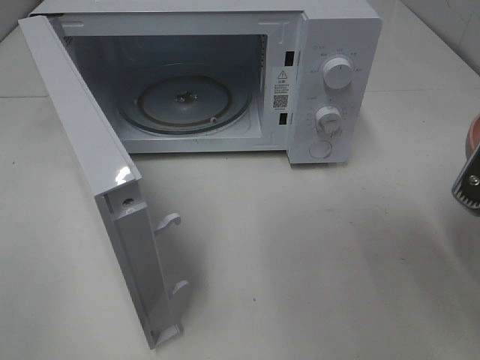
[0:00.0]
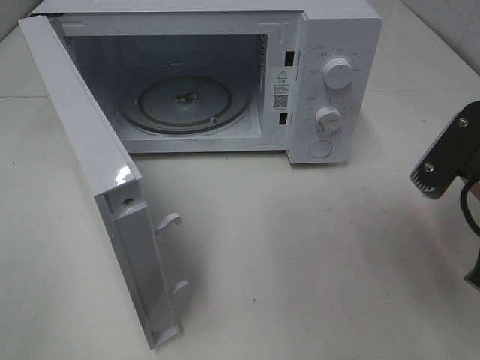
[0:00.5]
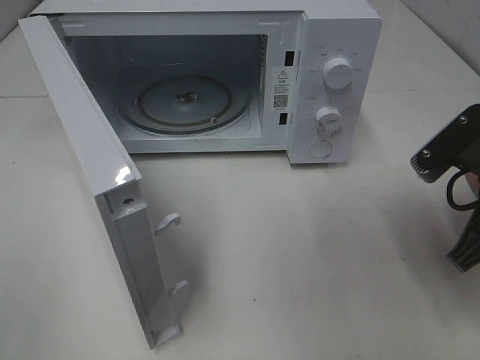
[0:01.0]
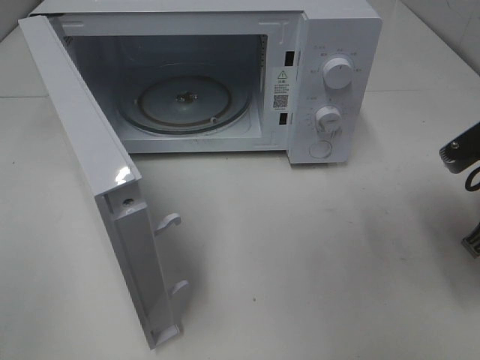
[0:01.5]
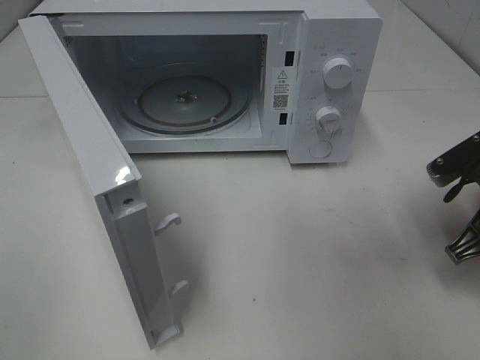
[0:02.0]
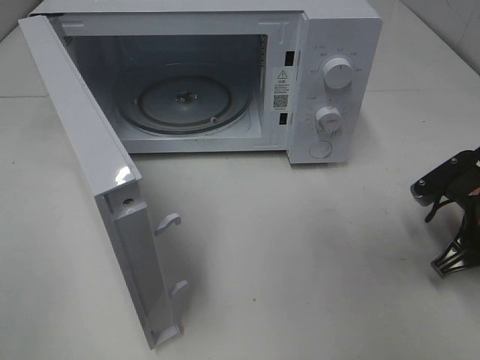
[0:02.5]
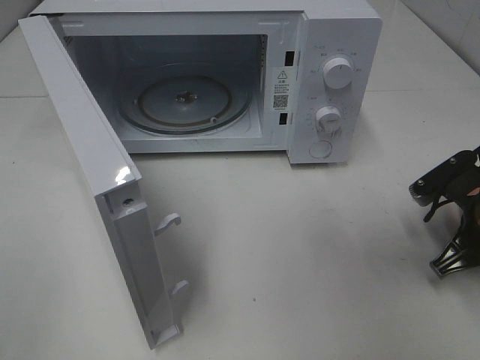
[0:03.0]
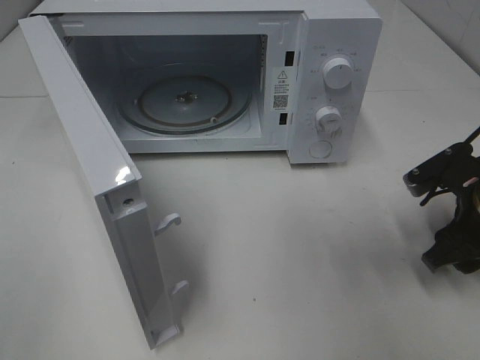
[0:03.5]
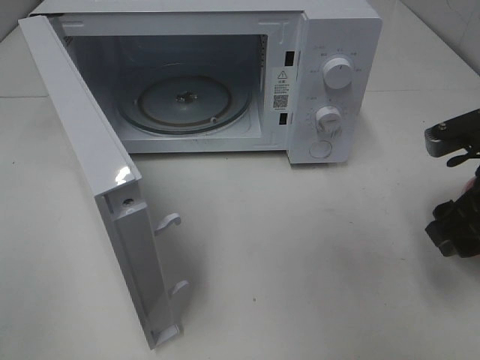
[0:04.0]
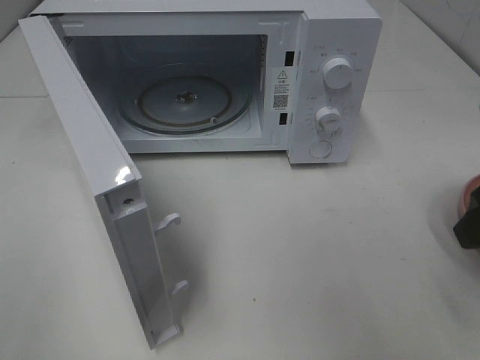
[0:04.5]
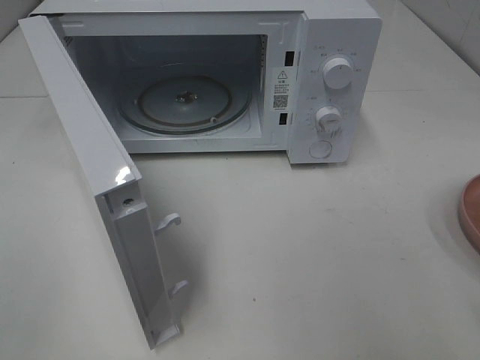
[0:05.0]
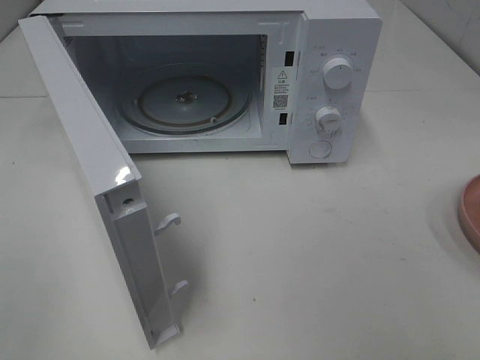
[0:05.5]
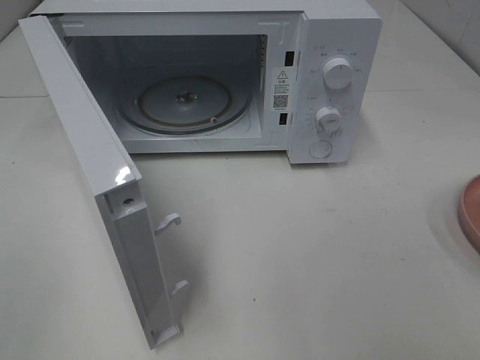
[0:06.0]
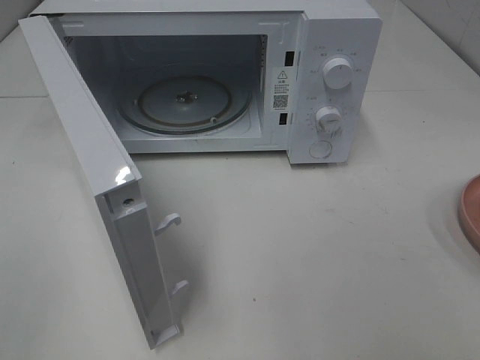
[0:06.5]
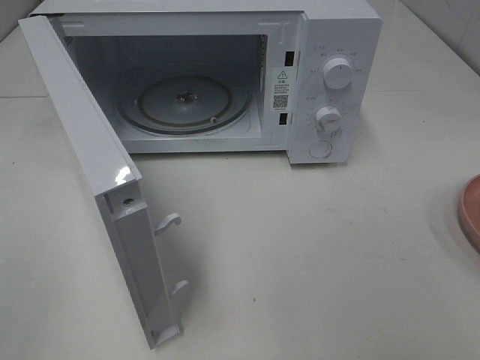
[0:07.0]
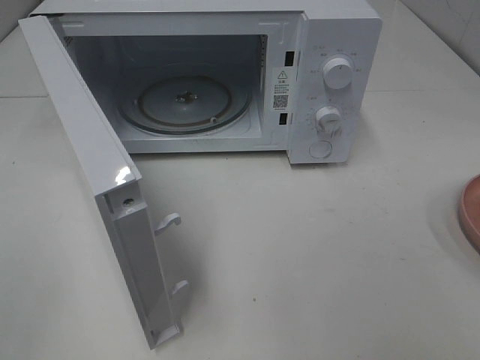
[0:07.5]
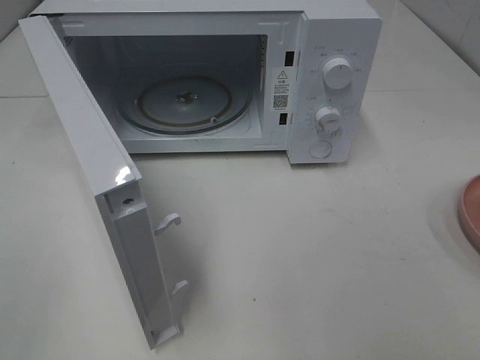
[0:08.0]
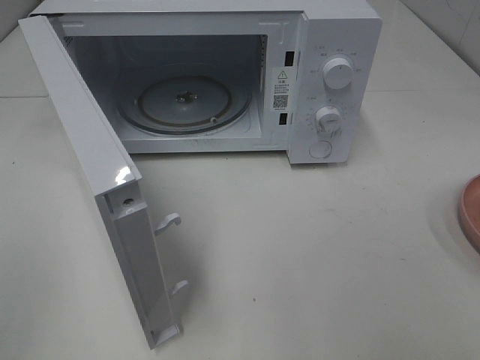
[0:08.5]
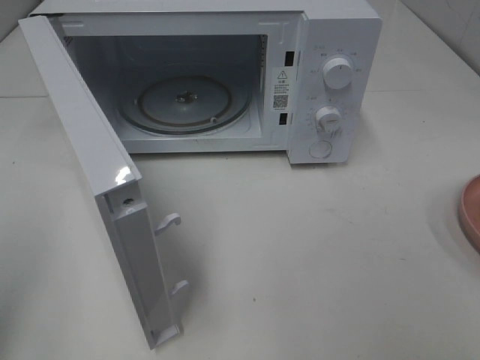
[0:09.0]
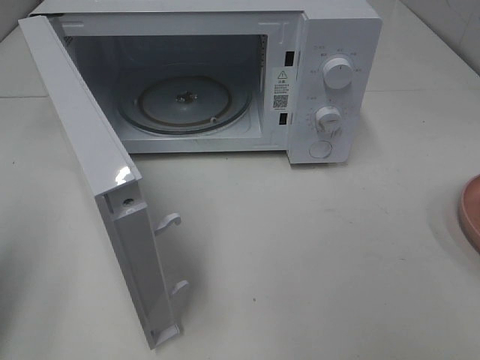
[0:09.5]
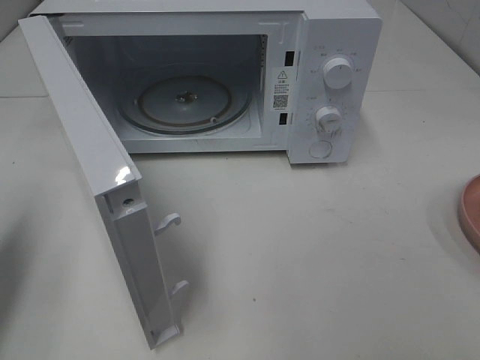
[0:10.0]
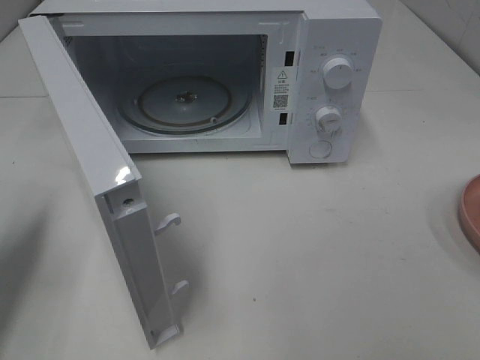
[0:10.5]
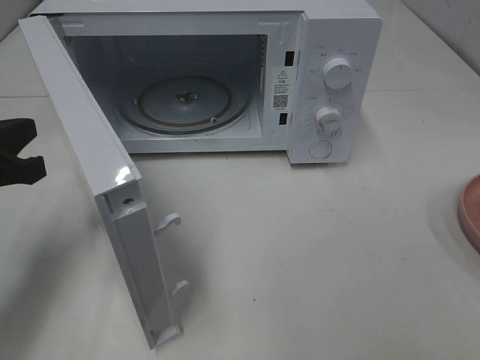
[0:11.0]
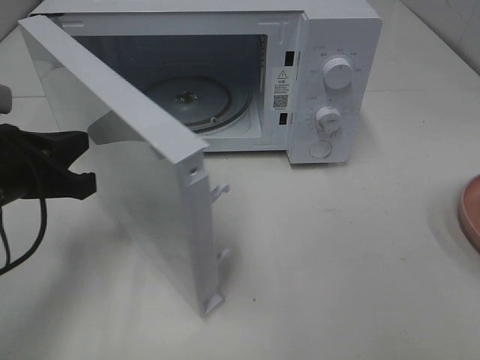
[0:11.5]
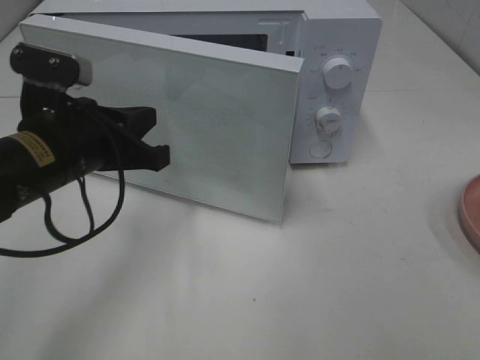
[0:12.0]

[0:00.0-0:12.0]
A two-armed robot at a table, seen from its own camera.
Task of the whole recording: Heat Sandwich.
Step, 0.0 to 4.0 s: Right hand: place the plate on the table.
0.0 to 2.0 s: The right gripper is displaced downward and forward by some 15 cm.
2.0 to 4.0 s: The right gripper goes approximately 5 cm upward, and opens up.
4.0 to 6.0 s: The right gripper shifts roughly 25 cm backward and upward.
6.0 to 8.0 s: Both grippers stay about where they are.
8.0 to 10.0 s: The left gripper shifts about 20 cm forward, and closes.
10.0 to 12.0 s: The left gripper heads to the right and forward, covering roughly 20 cm.

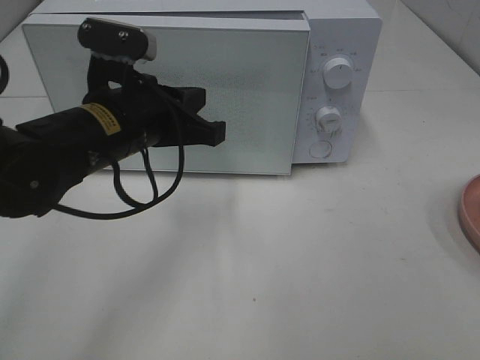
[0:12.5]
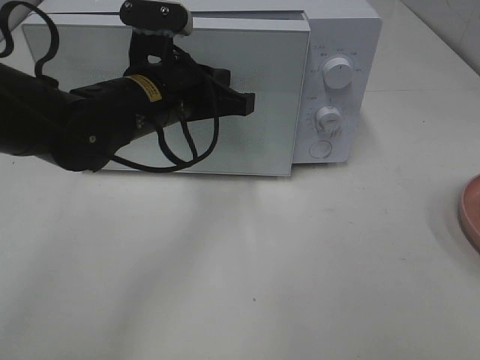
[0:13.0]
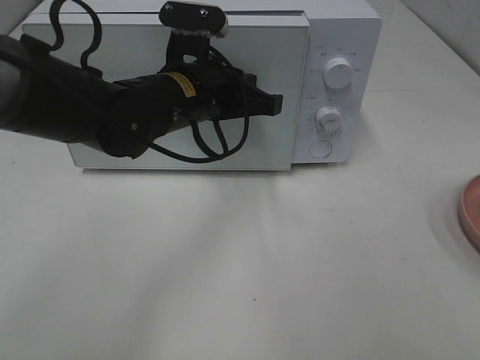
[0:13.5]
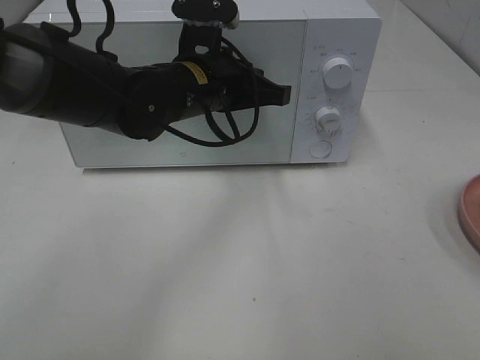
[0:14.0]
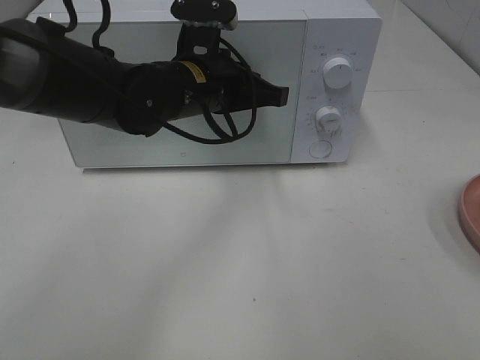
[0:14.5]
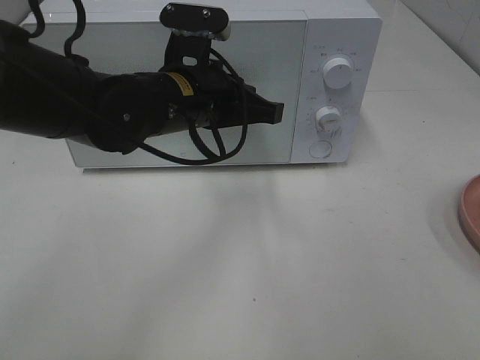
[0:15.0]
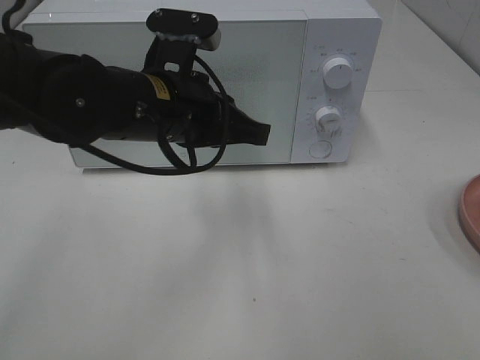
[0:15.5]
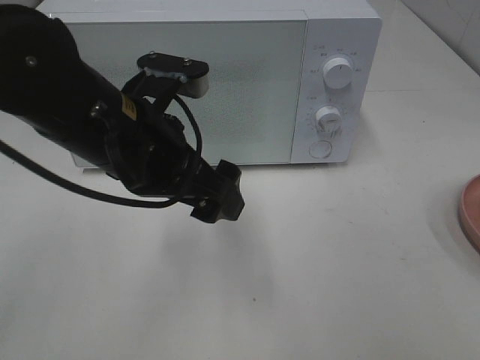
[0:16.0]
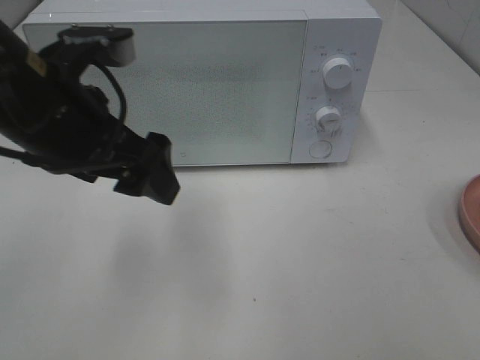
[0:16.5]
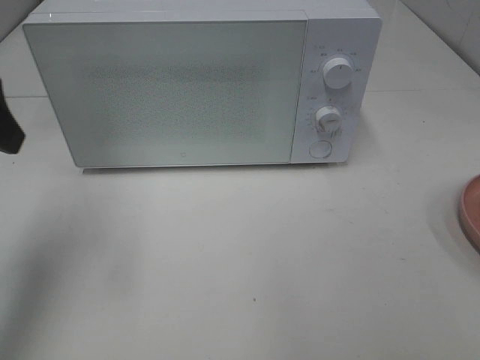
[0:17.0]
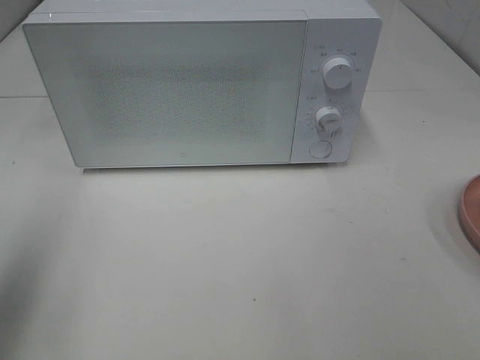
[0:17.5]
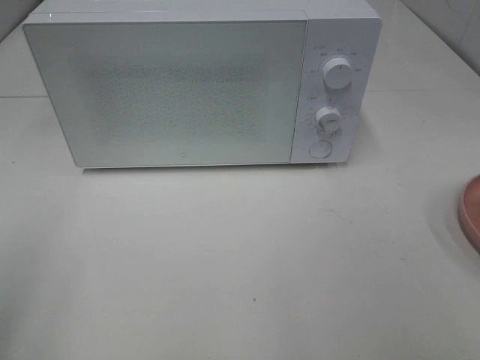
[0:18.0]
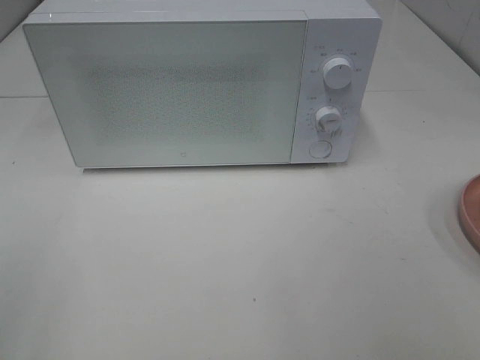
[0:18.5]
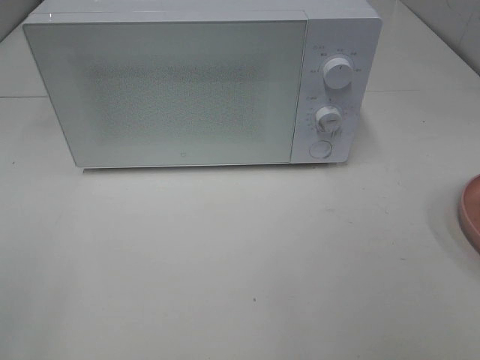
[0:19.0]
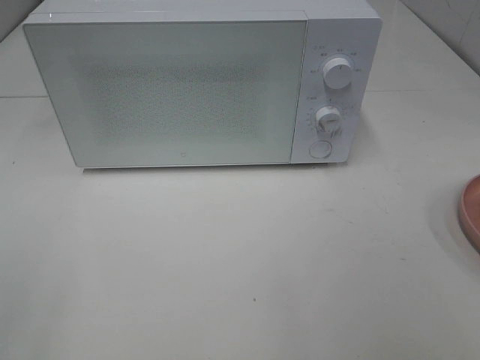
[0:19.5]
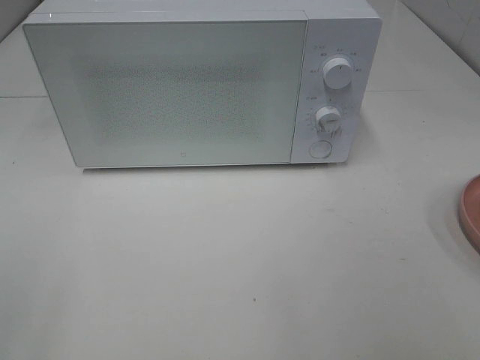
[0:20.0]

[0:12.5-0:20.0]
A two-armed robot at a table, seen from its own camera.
Task of the whole recording: Heat Sandwich.
Step, 12.5 to 15.0 s: Left hand: close the microwave door.
12.5 to 14.5 s: The left gripper is displaced forward and to the right by roughly 10 cm.
14.5 to 16.5 s: The left gripper is displaced backward, to the left and upward by approximately 15 cm, and opens up.
16.5 to 18.0 s: The left gripper is displaced to the left and backward by roughly 25 cm.

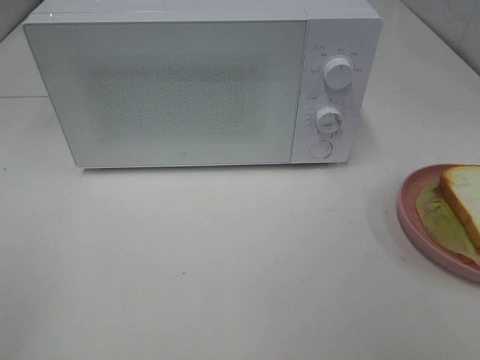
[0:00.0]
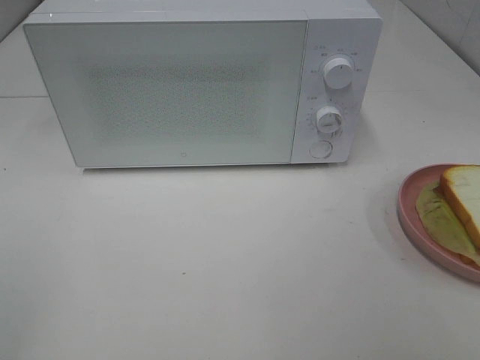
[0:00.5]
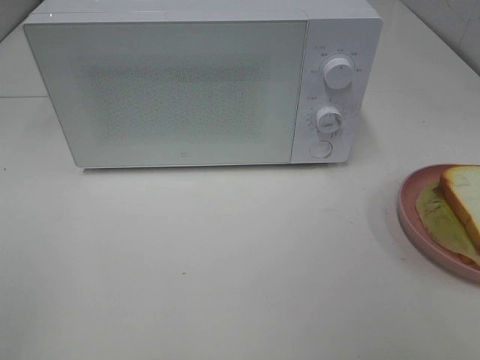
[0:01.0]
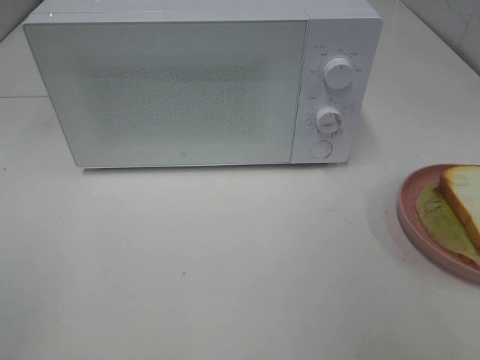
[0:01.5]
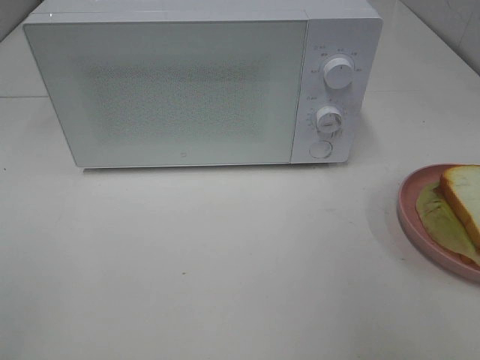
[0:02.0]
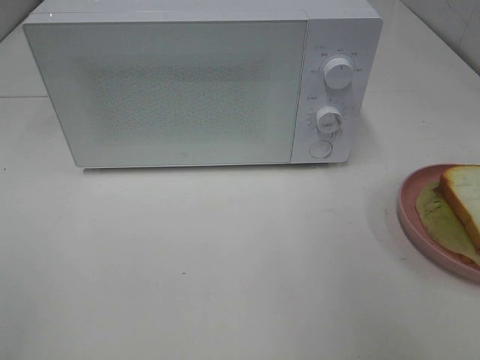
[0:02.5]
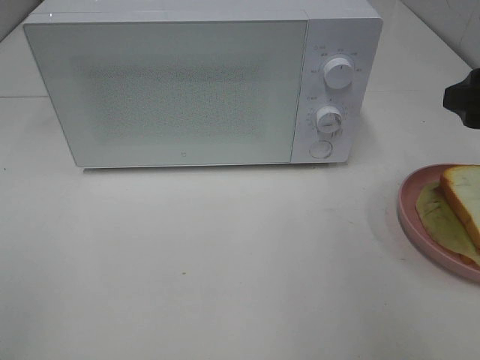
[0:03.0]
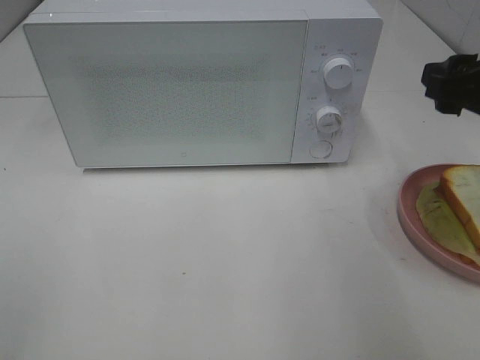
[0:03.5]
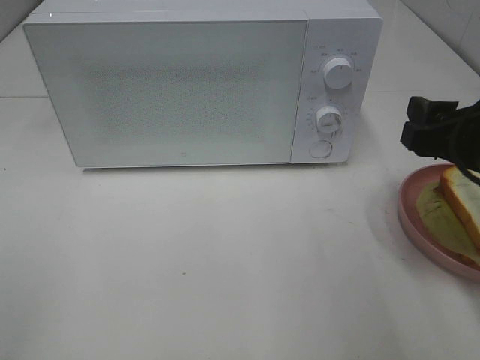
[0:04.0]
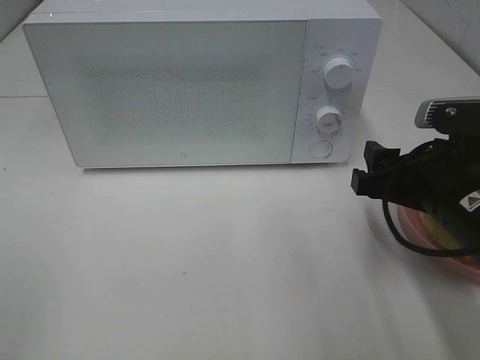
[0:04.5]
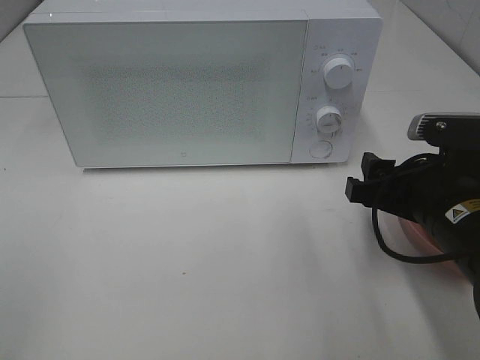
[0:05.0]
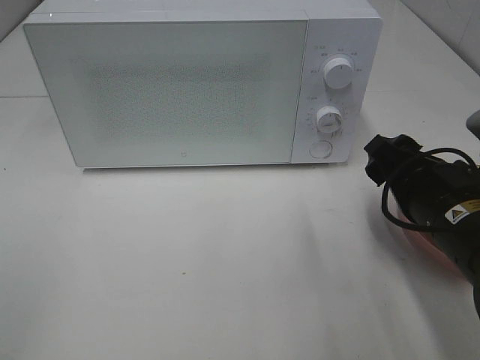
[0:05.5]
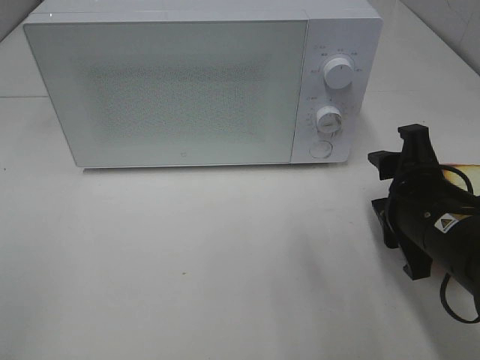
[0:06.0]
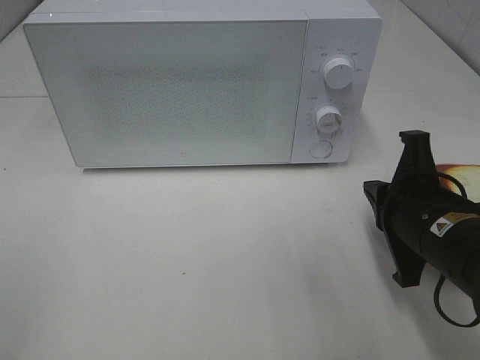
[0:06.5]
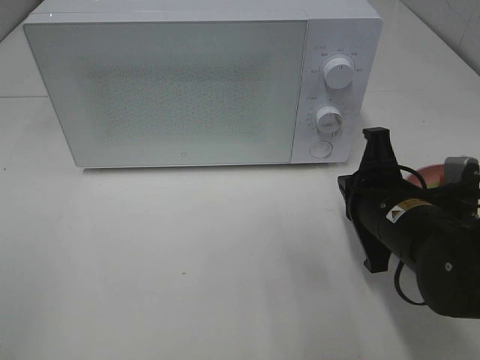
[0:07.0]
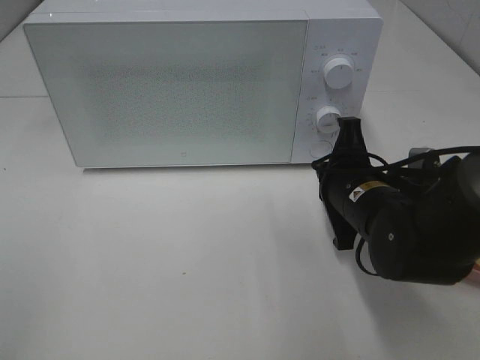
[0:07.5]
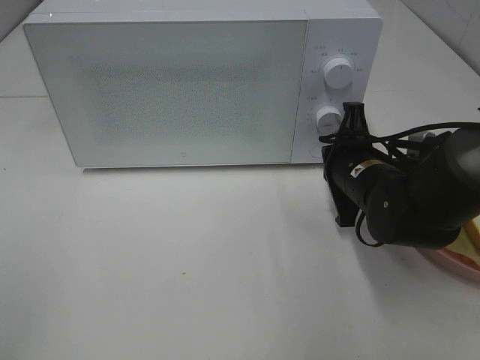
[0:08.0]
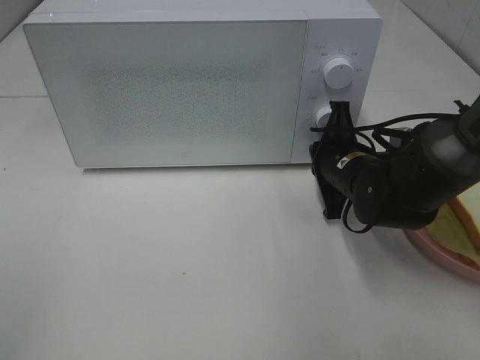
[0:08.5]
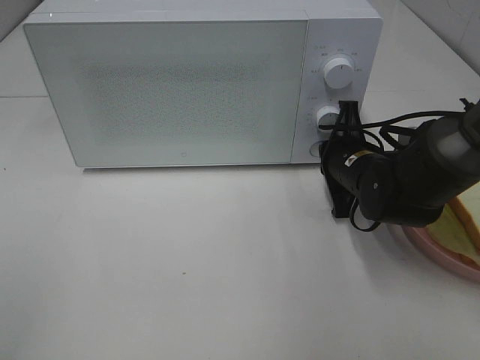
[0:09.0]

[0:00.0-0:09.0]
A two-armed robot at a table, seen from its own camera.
Task of the whole recording: Heat Sandwich.
2.0 to 4.5 s: The right gripper travels downward, to the left and forward by approximately 15 cm.
4.5 to 7.0 s: The right gripper ends up some 5 cm from where it was, and closes.
7.0 to 9.0 s: The right gripper is displaced forward by some 10 cm.
